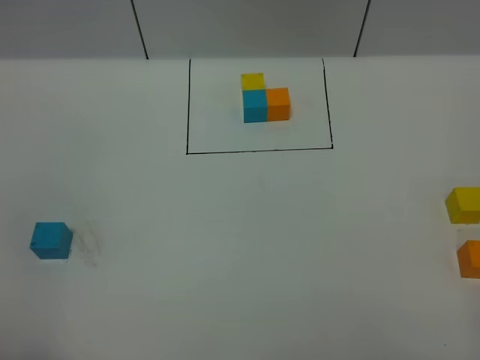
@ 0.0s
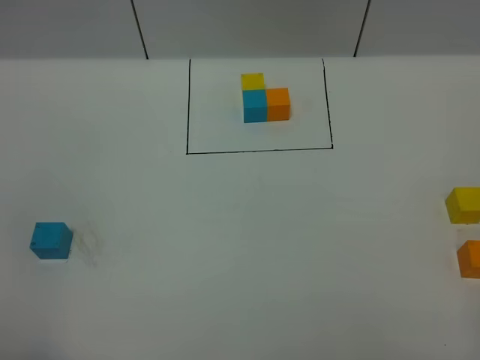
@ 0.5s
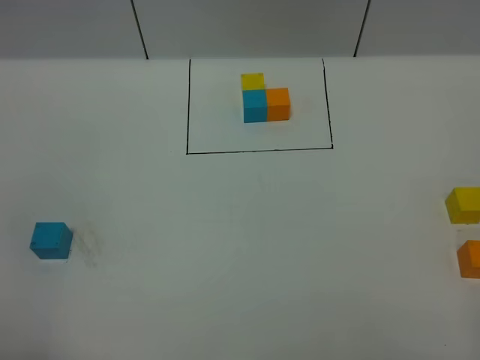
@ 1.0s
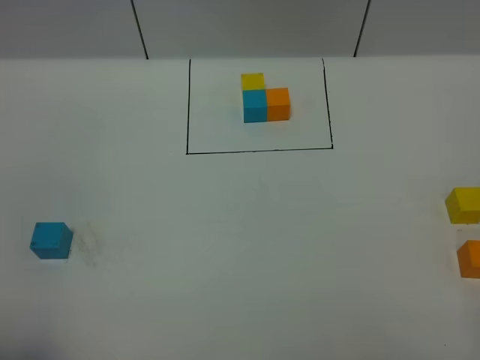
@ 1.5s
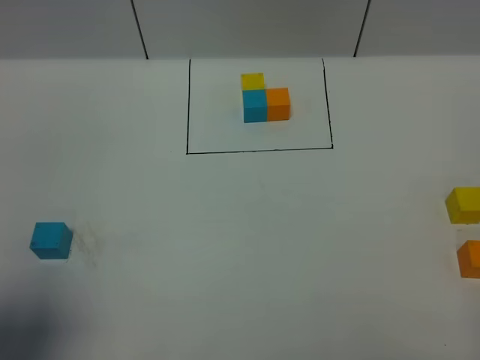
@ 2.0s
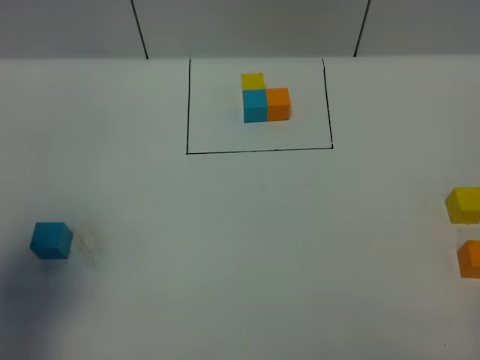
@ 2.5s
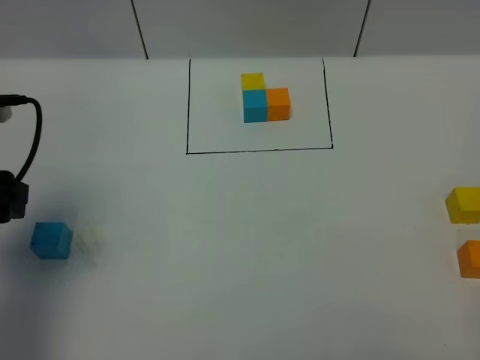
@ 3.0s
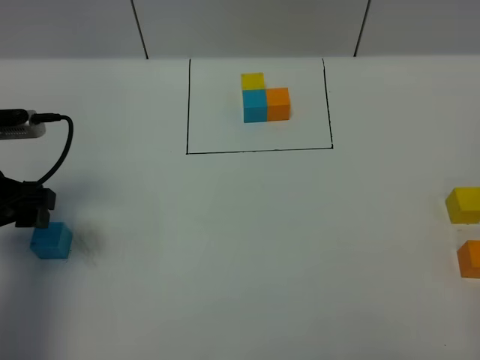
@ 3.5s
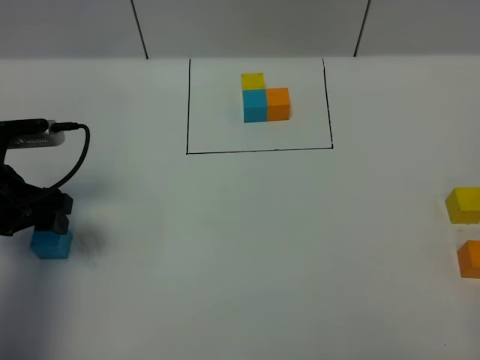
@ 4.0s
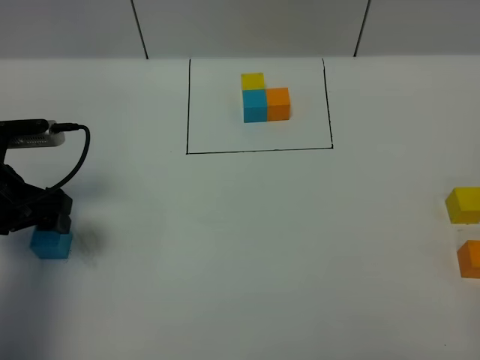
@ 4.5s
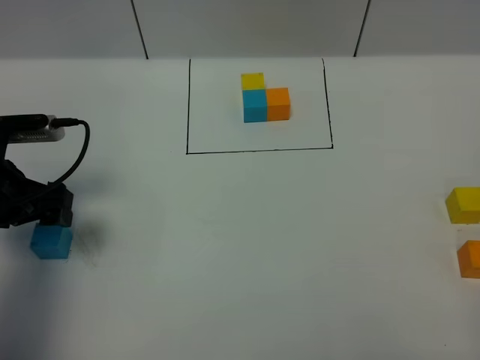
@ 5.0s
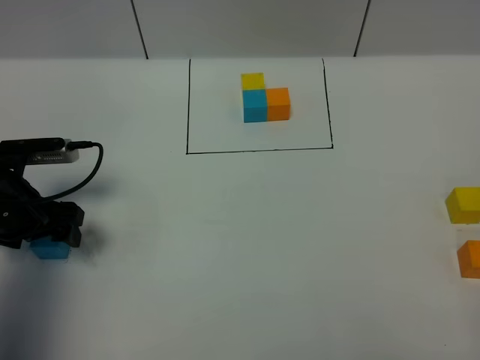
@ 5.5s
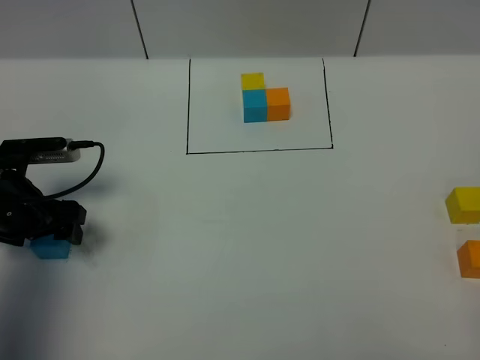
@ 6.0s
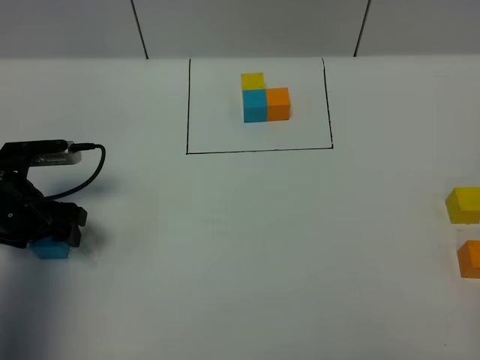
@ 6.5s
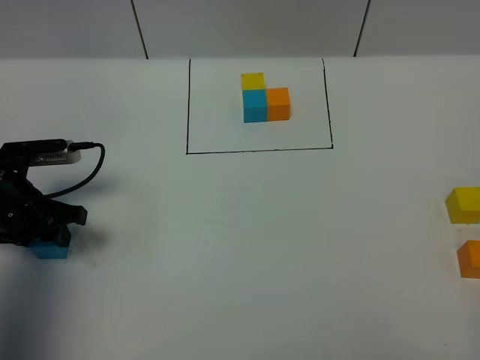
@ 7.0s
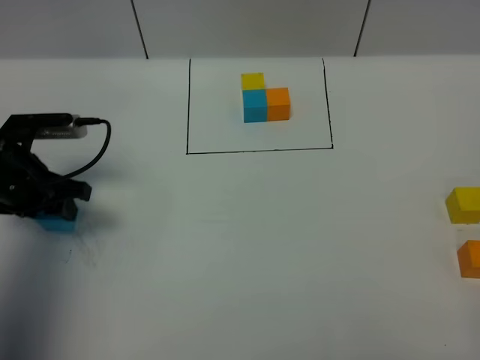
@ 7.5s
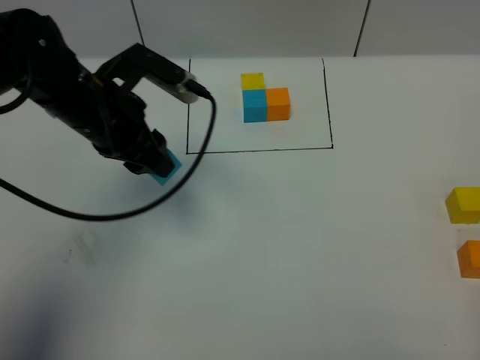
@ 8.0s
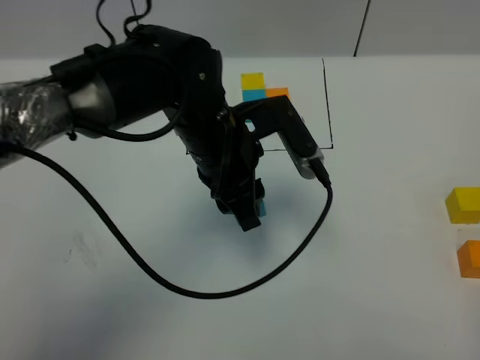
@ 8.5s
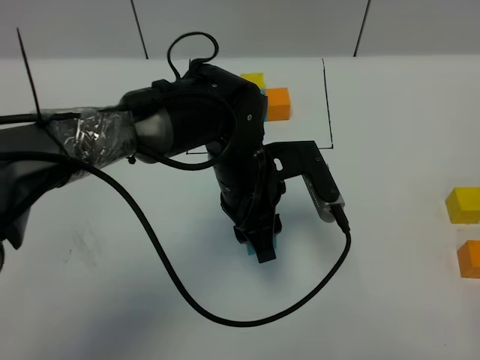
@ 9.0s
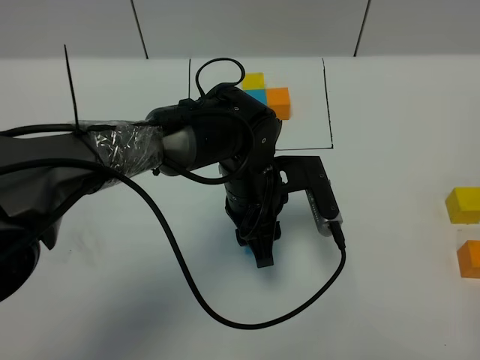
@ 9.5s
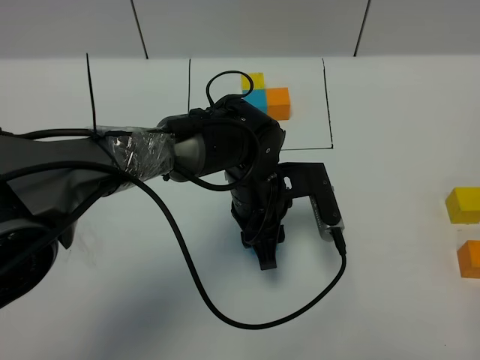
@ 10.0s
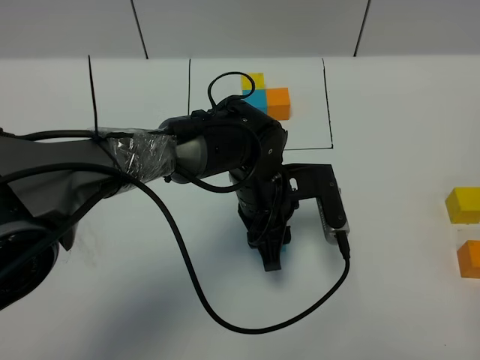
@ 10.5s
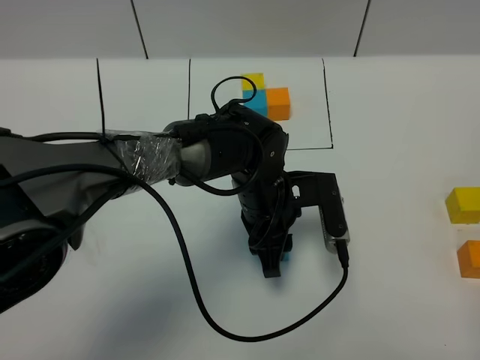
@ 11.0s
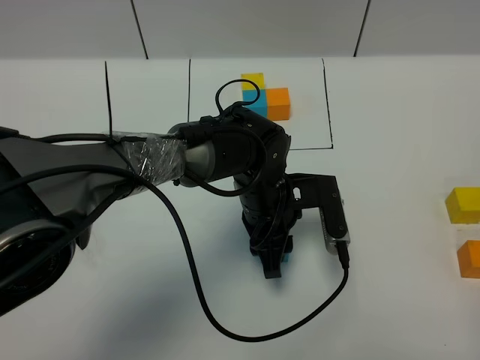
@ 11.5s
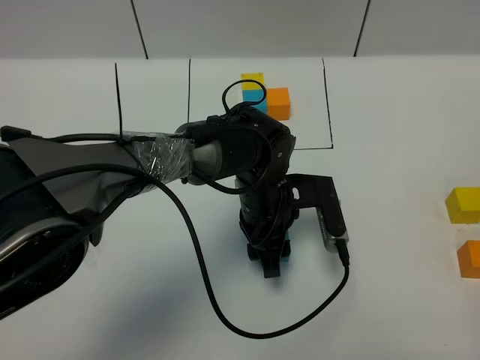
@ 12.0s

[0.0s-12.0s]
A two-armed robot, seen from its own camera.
Task of the whole recording: According to the building block template in front, assemble the scattered blocks together.
0.0s to 2.0s: The left gripper travels forward by some 10 cm.
2.0s to 4.0s: The left gripper heads forward and downward, covering roughly 25 cm.
4.0s to 6.0s: The left gripper shifts by about 5 cm.
6.0s to 8.0s: The left gripper goes about 20 cm to the right and upward, and closes up.
8.0s to 10.0s: The left gripper moves to the right and downward, some 20 cm.
10.0s to 12.0s: The left gripper opens its fingers.

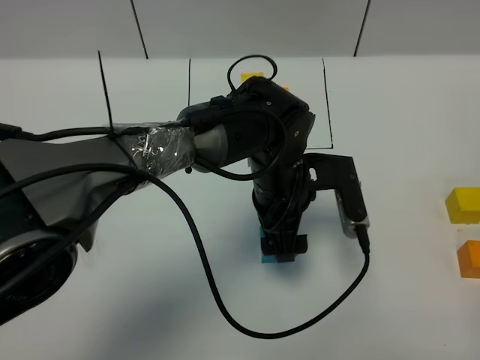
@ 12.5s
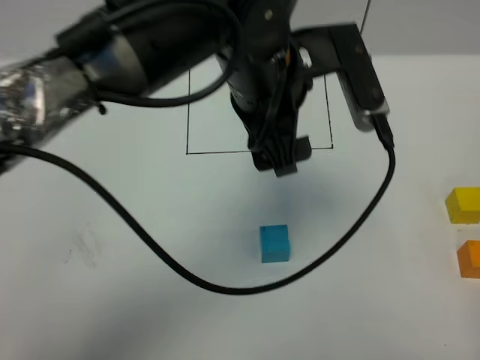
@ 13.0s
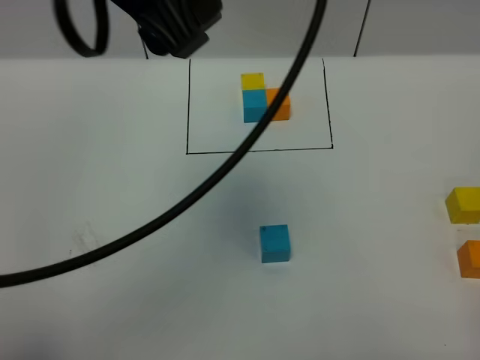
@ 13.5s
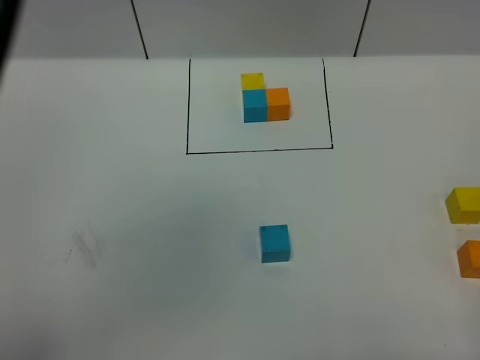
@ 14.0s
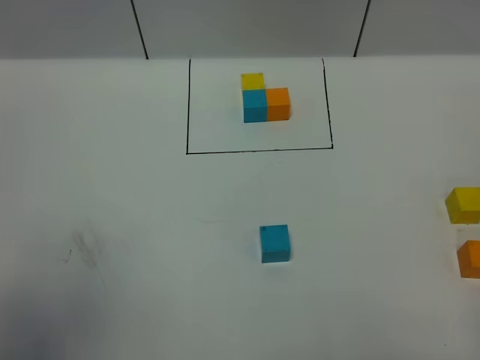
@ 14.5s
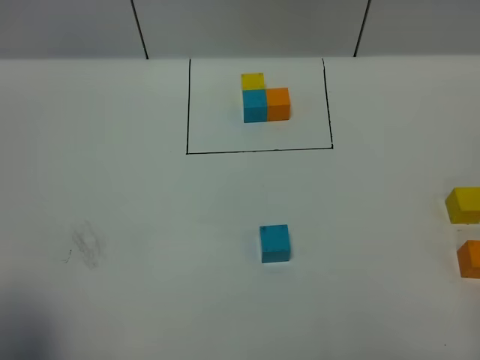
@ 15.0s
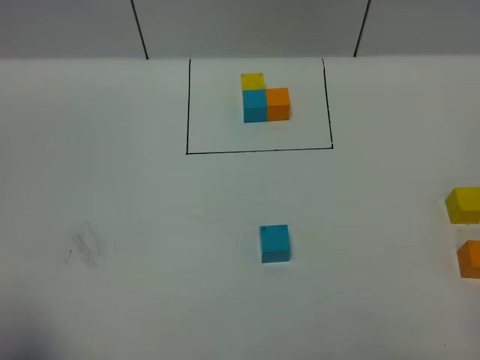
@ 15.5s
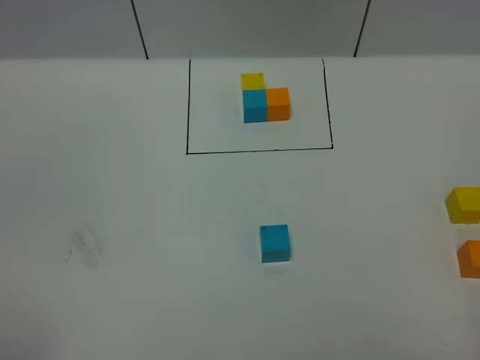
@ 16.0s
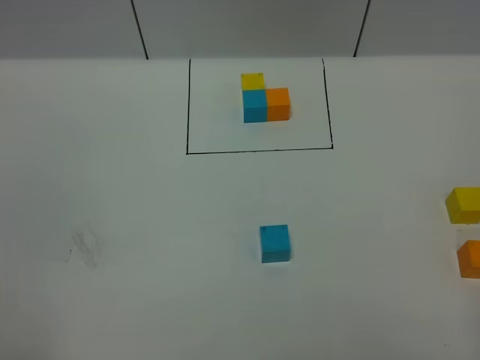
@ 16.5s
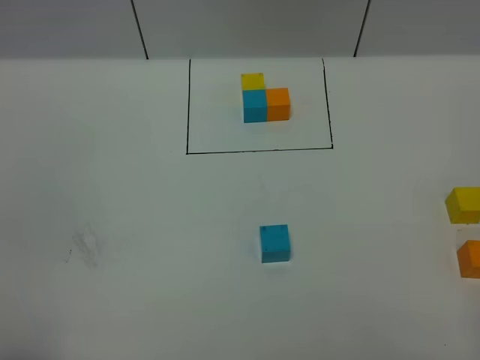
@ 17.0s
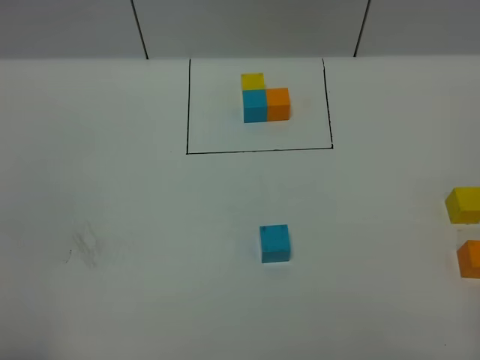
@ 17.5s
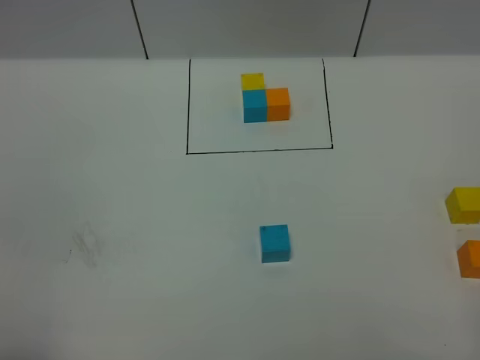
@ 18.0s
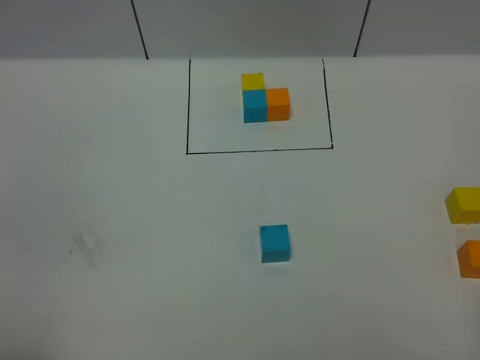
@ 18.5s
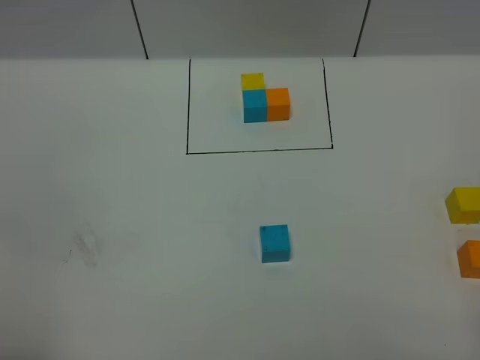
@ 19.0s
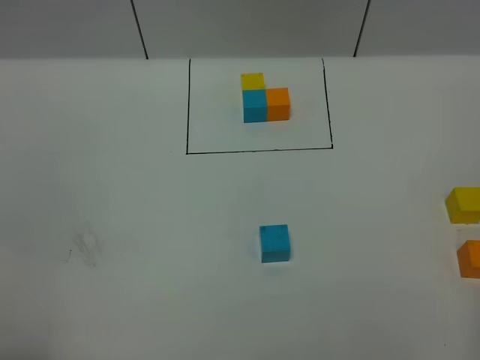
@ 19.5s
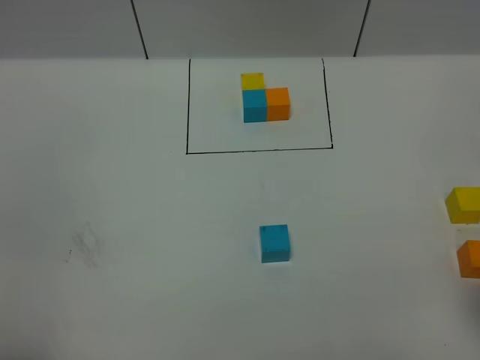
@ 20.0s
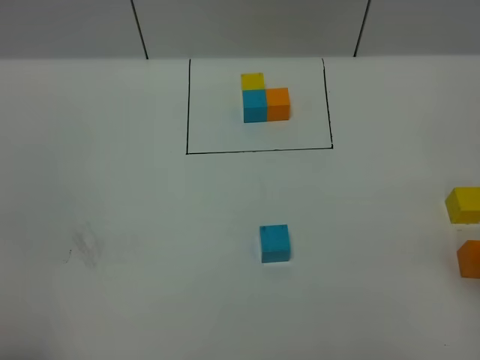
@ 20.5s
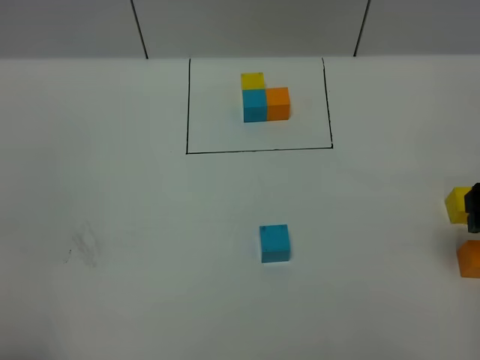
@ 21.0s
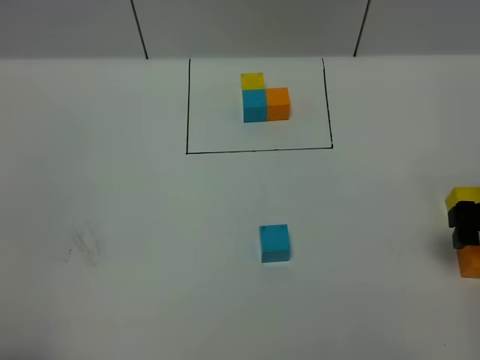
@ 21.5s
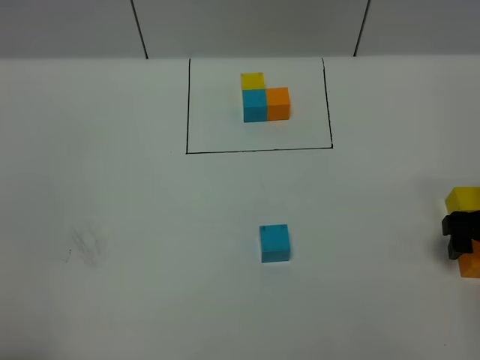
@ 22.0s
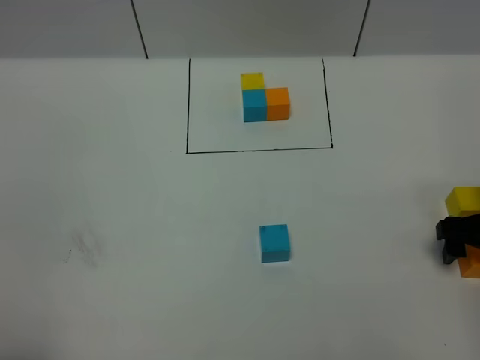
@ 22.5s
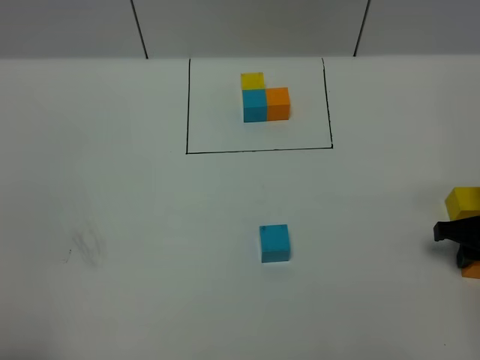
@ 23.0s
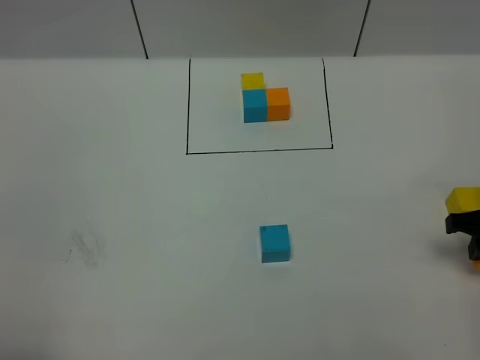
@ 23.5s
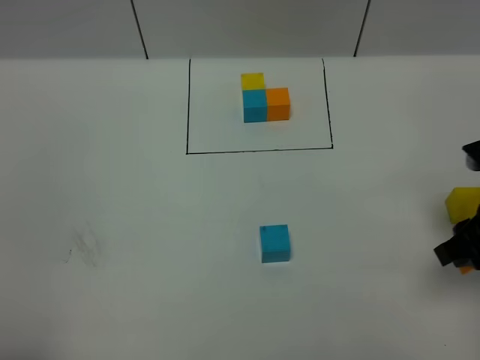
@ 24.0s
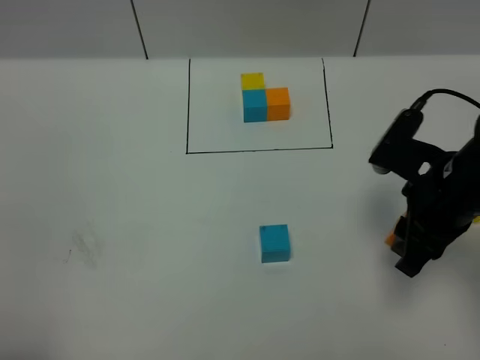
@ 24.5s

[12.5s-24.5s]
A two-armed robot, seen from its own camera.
Task of the whole recording: According to the building block template in front, assemble the scattered blocks together.
12.5s to 14.5s: The left gripper is displaced upward, to the left and backward by approximately 50 cm.
14.5s to 16.5s: The left gripper travels downward and backward by roughly 25 cm.
20.5s to 22.5s: The right gripper travels downward and forward by approximately 15 cm.
22.5s to 24.5s: The right gripper goes some 15 cm to the left and upward, and closes up.

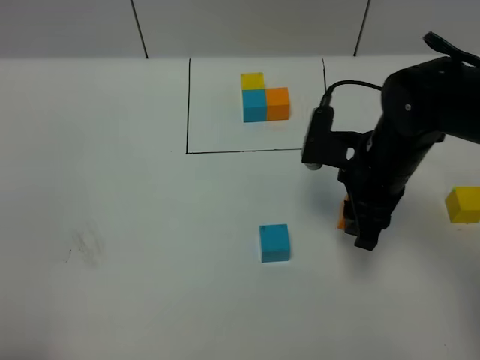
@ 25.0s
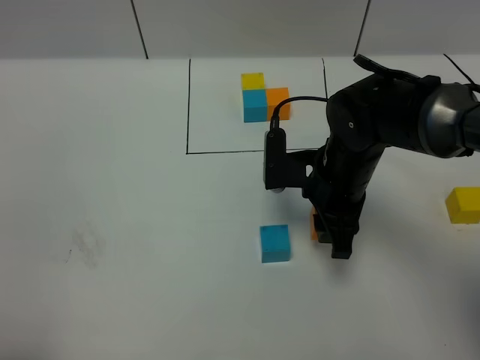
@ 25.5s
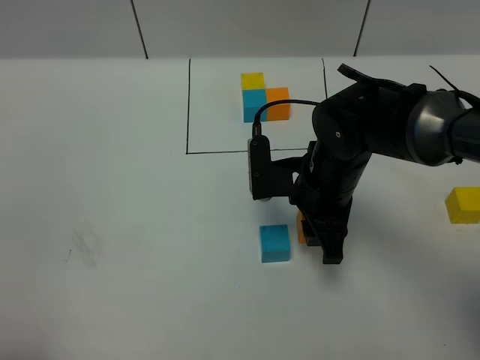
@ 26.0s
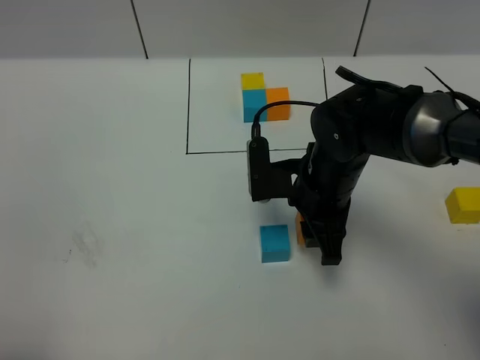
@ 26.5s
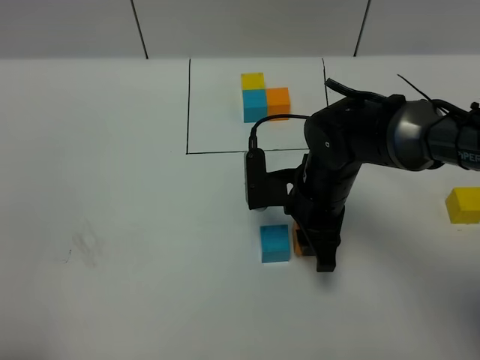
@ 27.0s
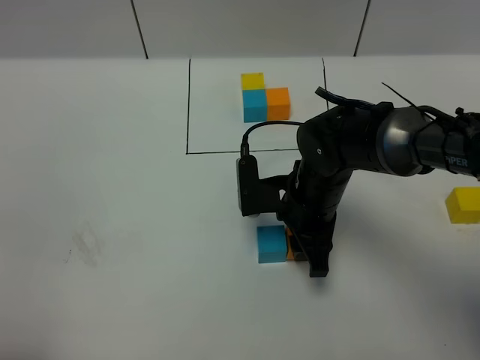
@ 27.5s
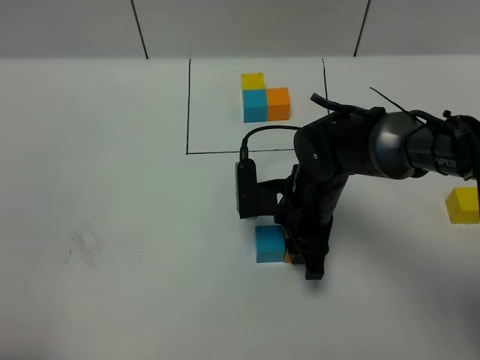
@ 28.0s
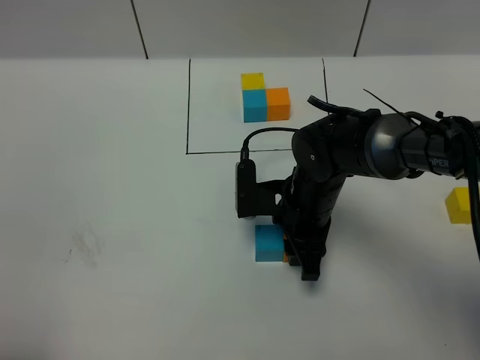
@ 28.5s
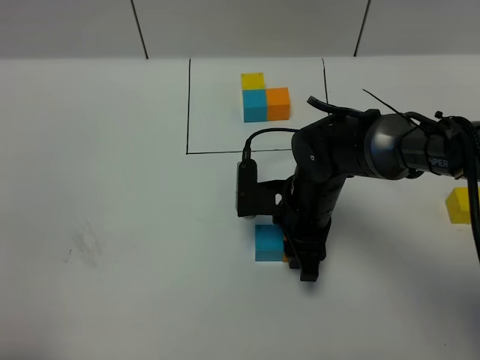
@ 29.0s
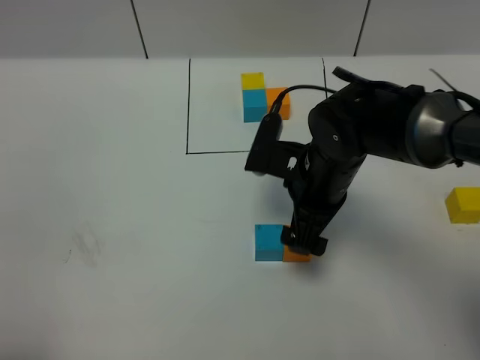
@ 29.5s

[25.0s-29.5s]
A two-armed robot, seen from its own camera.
Task of the whole recording: According to the building block template in front, assemble the scattered blocks together.
Step, 25.0s to 29.0s: Put the orange cube on the right of the blue cube.
25.0s to 27.0s: The right gripper travels to the left by about 5 cm.
27.0s to 29.5s: The right gripper opens up.
